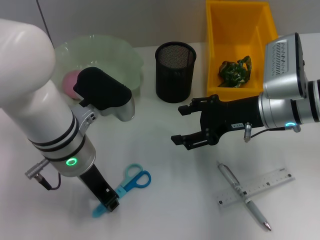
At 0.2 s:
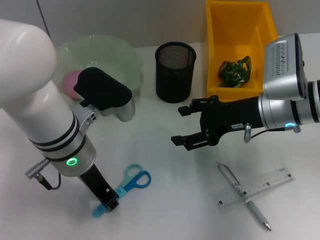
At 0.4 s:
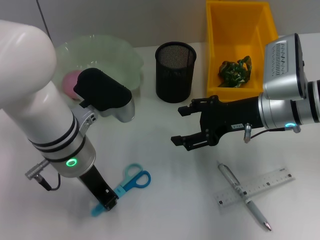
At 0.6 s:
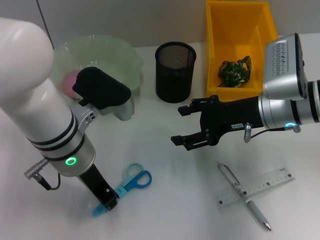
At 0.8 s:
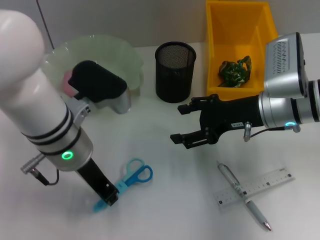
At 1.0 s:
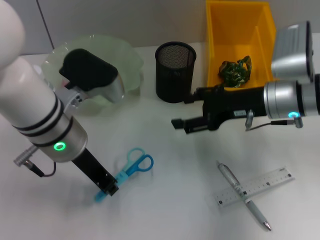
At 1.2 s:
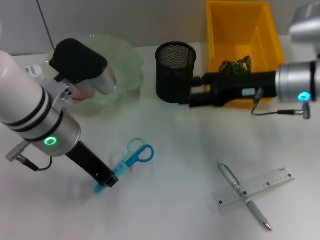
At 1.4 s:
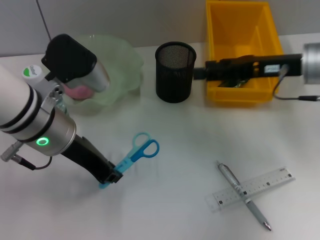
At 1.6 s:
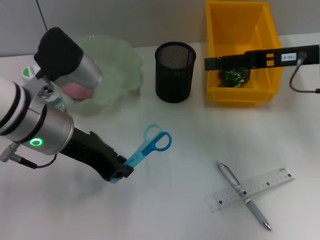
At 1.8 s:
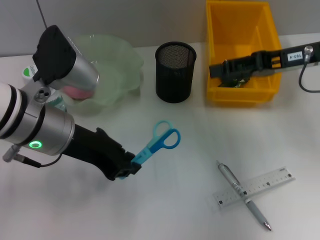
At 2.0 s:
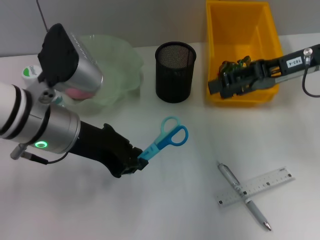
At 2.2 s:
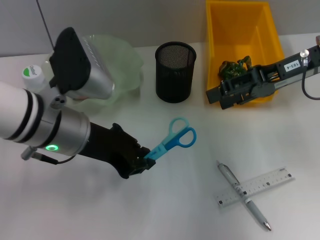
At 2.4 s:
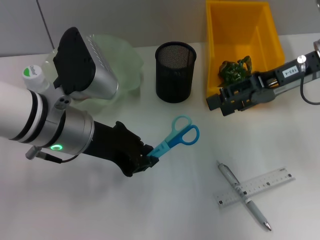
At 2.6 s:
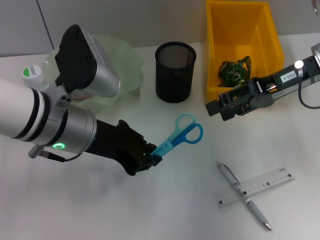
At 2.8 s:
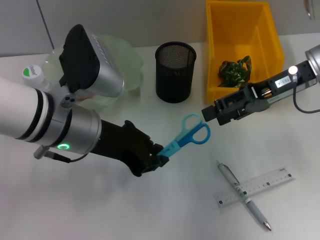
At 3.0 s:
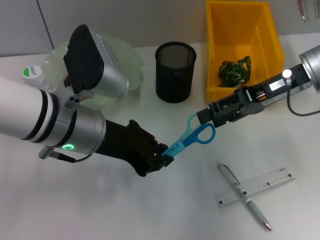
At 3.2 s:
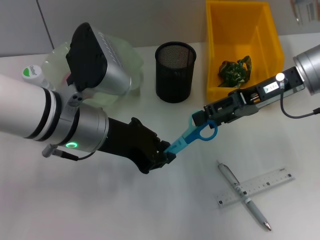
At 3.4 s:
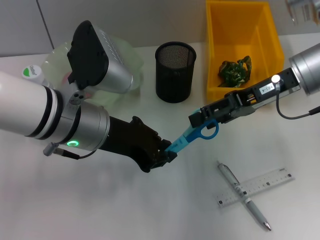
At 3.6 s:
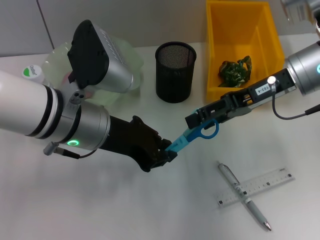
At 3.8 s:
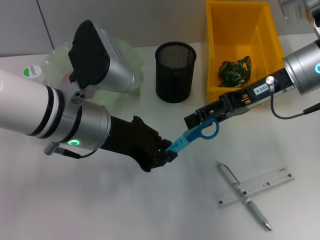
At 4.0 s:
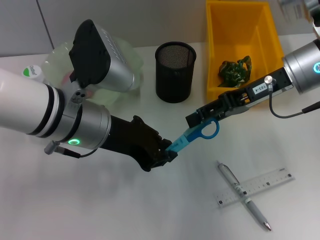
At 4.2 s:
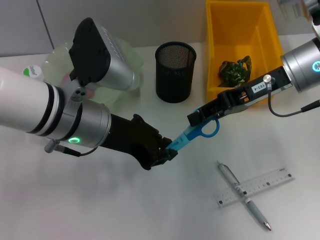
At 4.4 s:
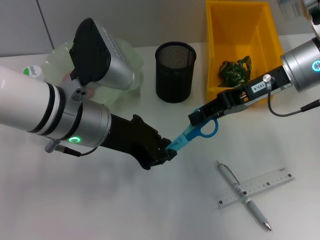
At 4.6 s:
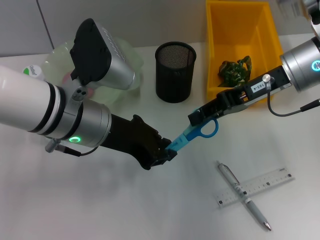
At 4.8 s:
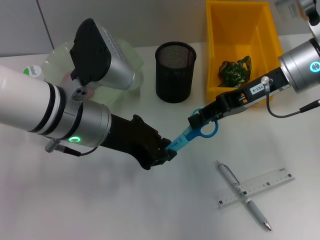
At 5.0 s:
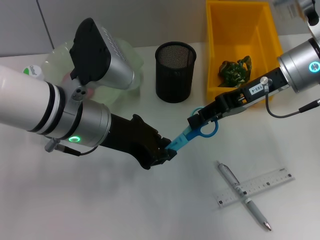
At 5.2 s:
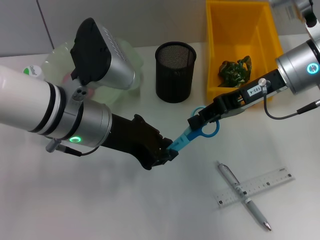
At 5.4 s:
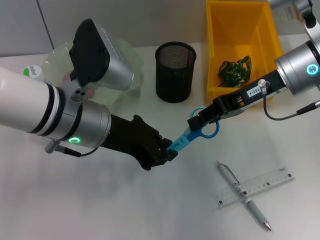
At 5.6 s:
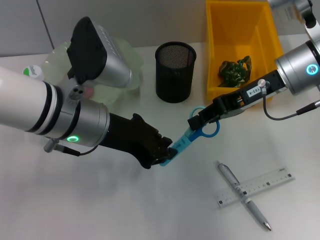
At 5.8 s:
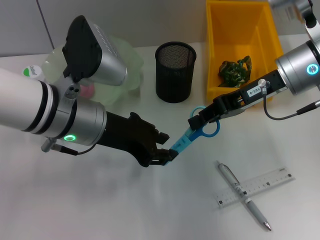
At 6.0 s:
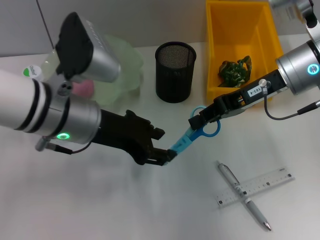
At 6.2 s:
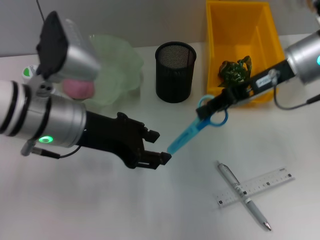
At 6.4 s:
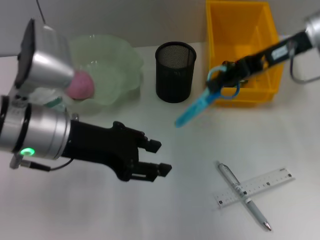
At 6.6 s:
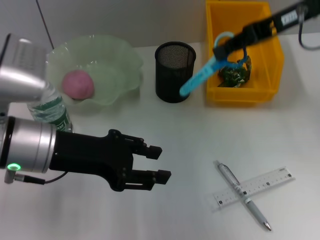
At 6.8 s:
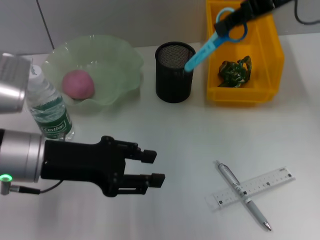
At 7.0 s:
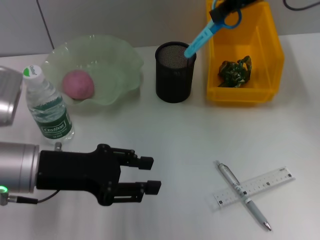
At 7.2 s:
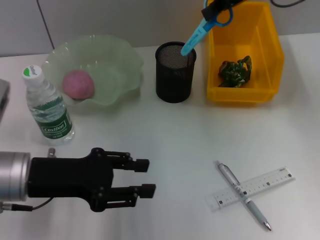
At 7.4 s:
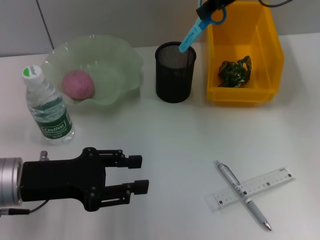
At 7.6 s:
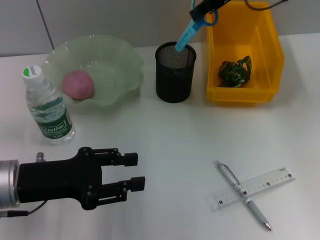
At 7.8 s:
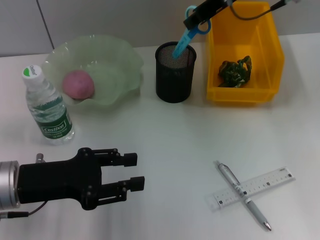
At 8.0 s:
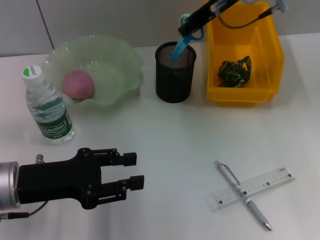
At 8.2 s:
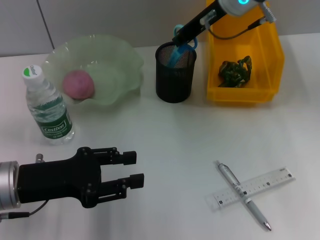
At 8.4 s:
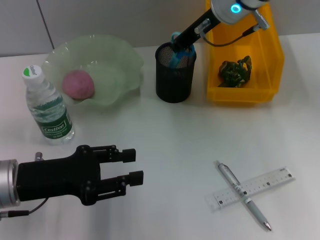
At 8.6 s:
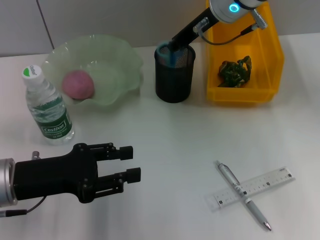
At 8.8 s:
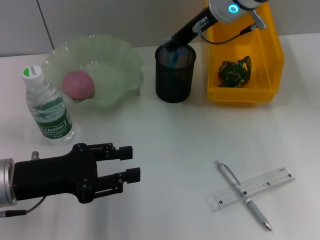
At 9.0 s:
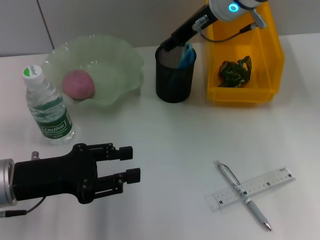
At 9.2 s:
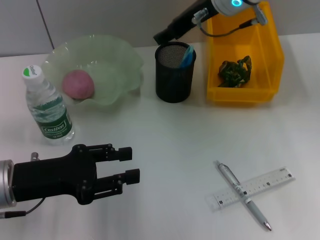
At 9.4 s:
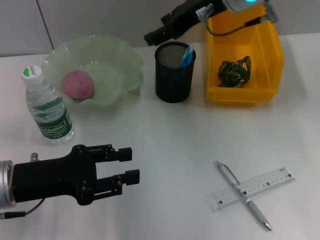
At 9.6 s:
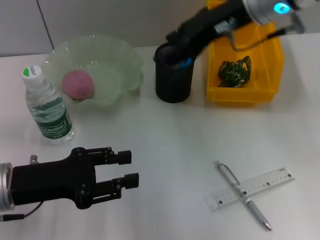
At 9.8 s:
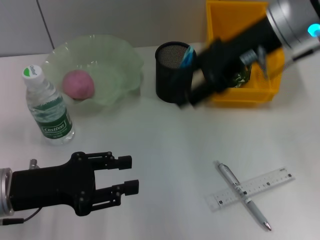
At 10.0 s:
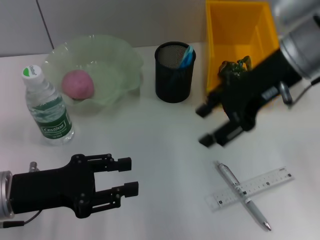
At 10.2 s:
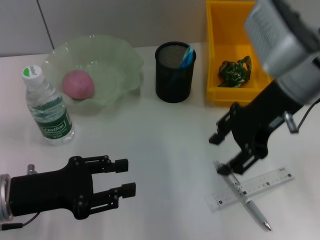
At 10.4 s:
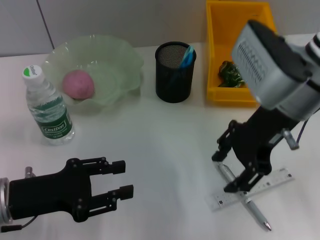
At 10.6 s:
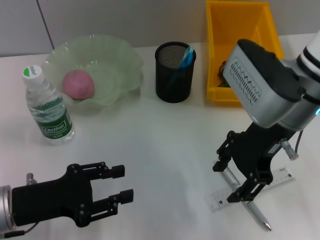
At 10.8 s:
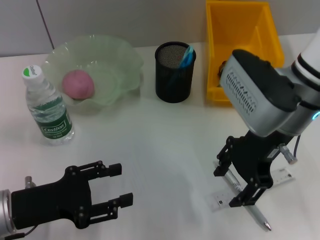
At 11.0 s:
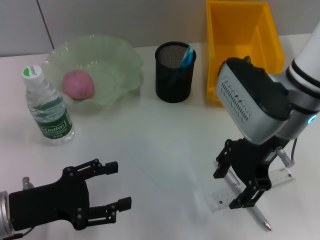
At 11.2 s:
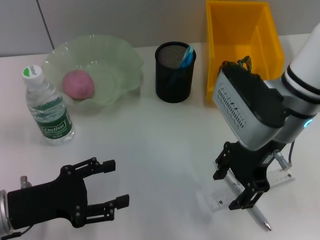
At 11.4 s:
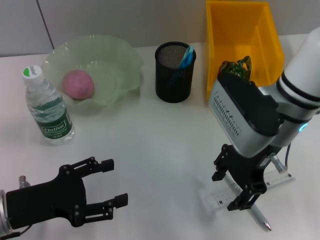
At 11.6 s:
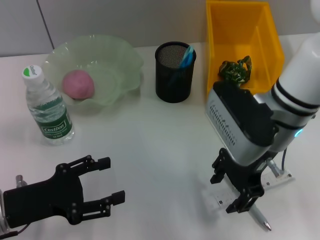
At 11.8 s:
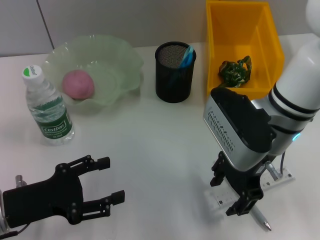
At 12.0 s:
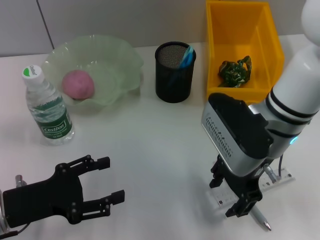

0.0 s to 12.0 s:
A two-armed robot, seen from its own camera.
Step, 0.4 to 6.0 s: Pass the blue scissors from the left hand to the right hand.
Step, 6.2 to 9.0 s: Place the blue scissors into the pen holder with the right hand.
0.0 to 1.6 s: The right gripper heads upward and to the right, covering roughly 10 cm. Meanwhile the left gripper shifts by some 5 cm.
3.0 to 4.4 s: The right gripper closes up.
4.4 to 6.0 s: The left gripper opens up. The right gripper closes.
6.0 to 7.6 s: The left gripper moves to the left, downward and backward, roughly 15 cm, while the right gripper heads upward and forward, covering about 15 cm.
7.6 to 9.0 s: The right gripper moves downward and to the left, some 10 cm.
9.0 to 10.4 s: The right gripper travels backward by roughly 10 cm, and opens up.
10.4 to 12.0 s: The left gripper opens. The right gripper moves downward, about 5 cm.

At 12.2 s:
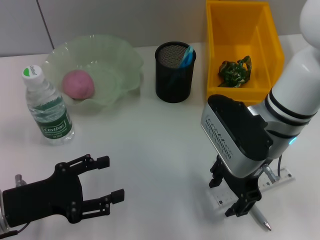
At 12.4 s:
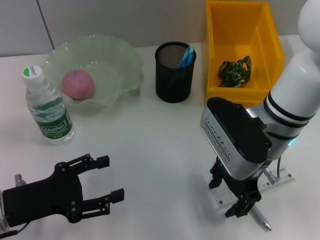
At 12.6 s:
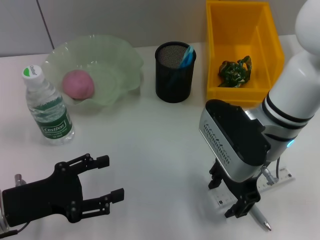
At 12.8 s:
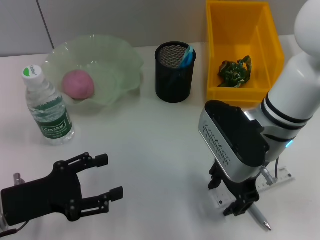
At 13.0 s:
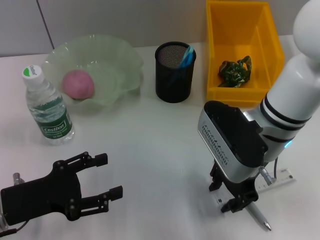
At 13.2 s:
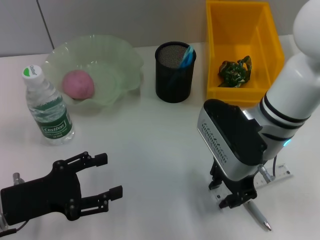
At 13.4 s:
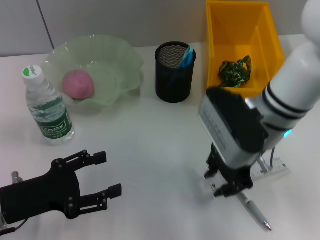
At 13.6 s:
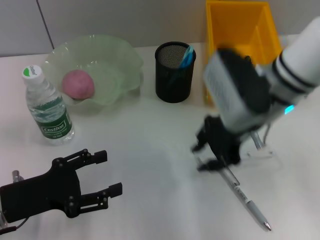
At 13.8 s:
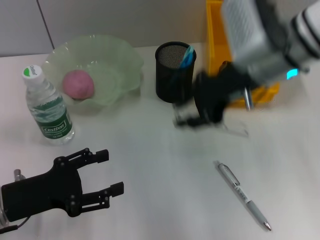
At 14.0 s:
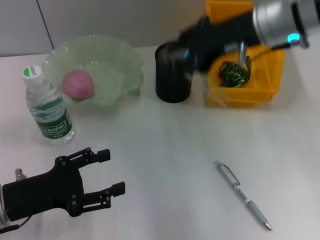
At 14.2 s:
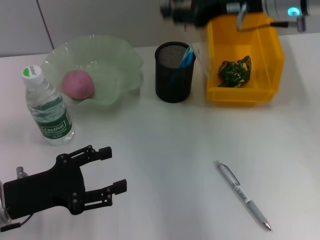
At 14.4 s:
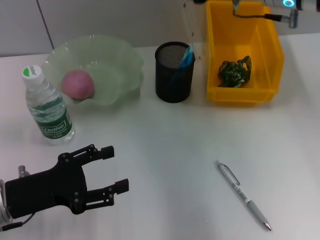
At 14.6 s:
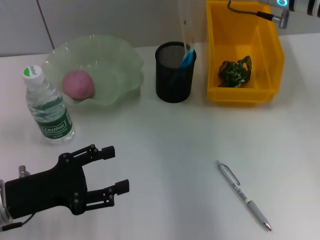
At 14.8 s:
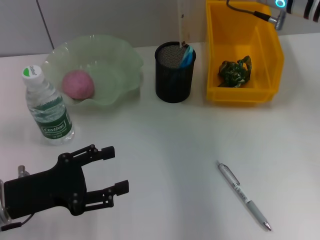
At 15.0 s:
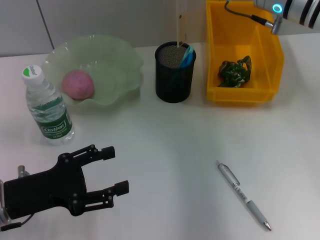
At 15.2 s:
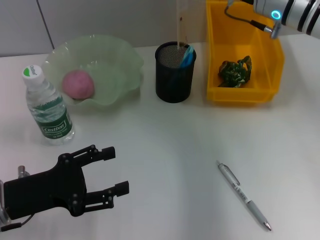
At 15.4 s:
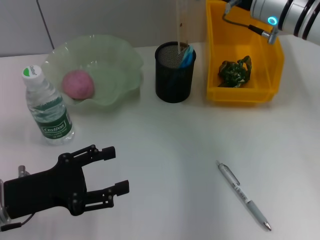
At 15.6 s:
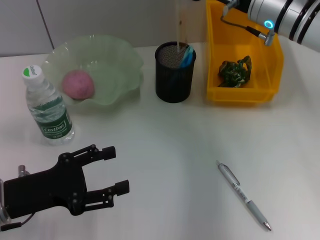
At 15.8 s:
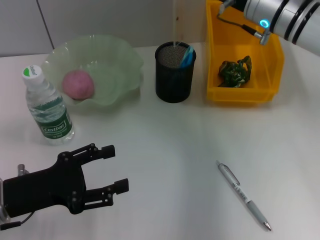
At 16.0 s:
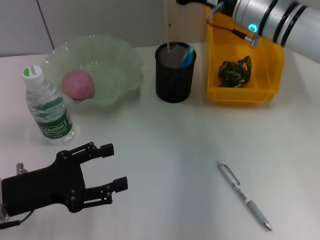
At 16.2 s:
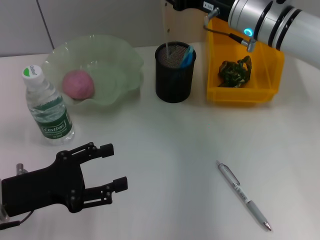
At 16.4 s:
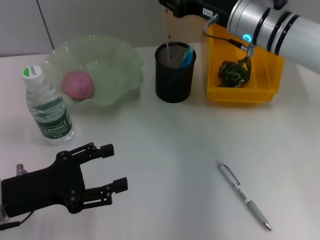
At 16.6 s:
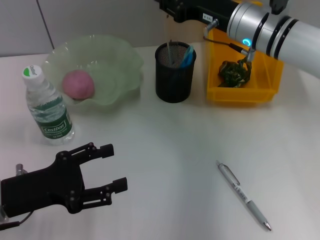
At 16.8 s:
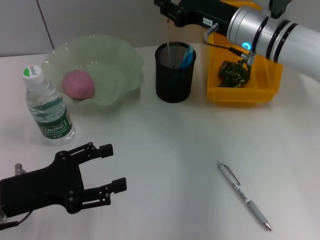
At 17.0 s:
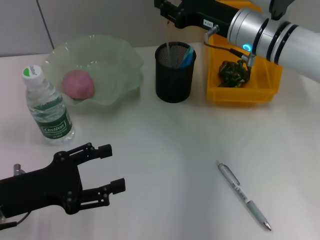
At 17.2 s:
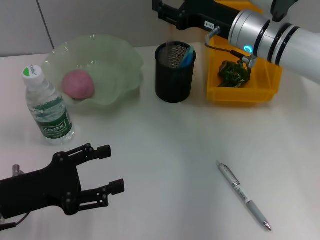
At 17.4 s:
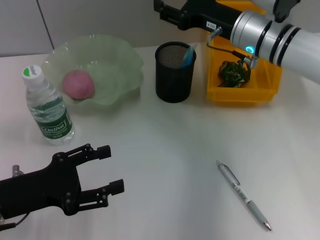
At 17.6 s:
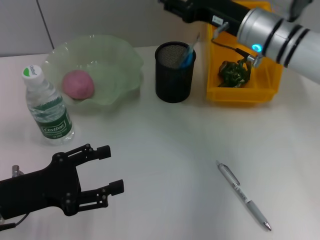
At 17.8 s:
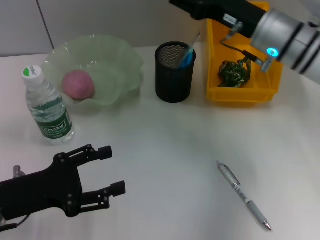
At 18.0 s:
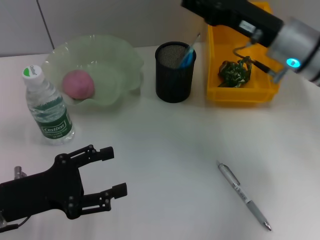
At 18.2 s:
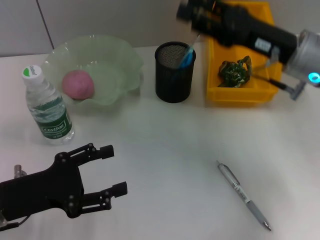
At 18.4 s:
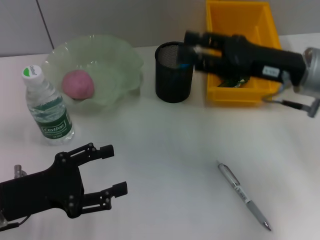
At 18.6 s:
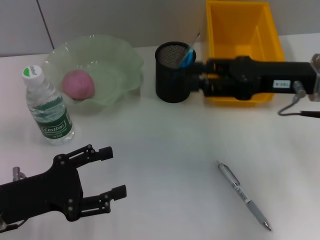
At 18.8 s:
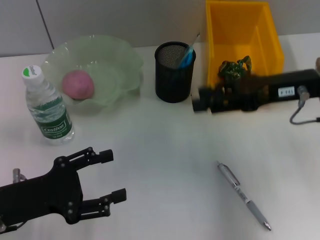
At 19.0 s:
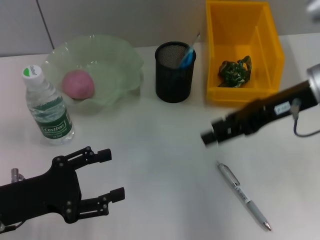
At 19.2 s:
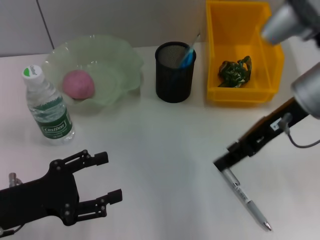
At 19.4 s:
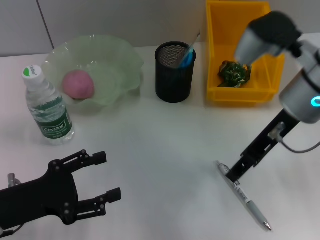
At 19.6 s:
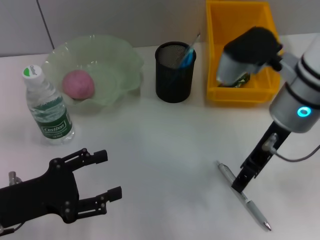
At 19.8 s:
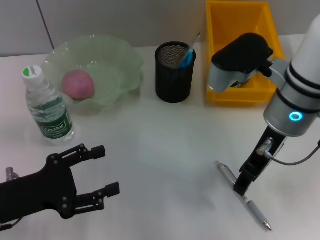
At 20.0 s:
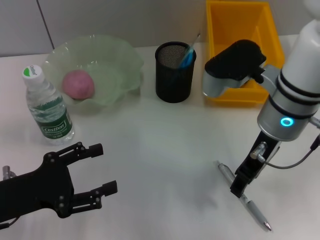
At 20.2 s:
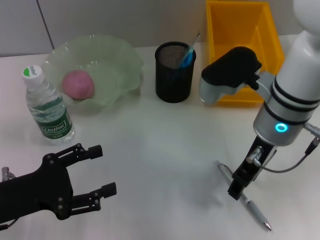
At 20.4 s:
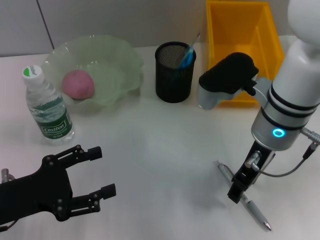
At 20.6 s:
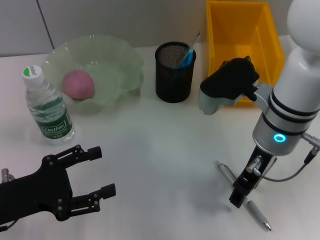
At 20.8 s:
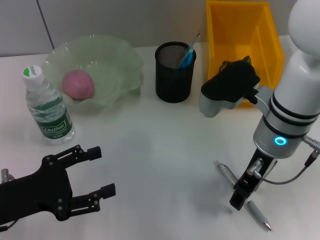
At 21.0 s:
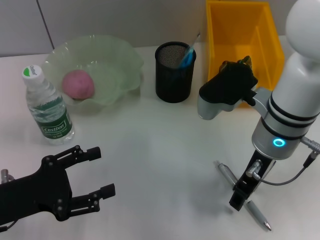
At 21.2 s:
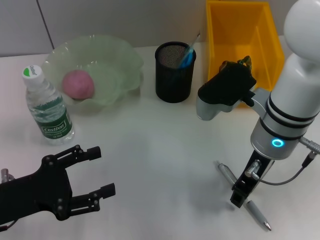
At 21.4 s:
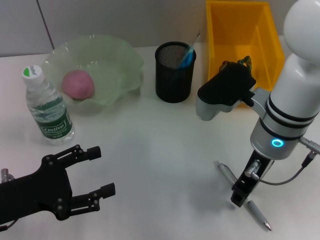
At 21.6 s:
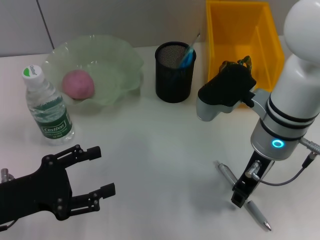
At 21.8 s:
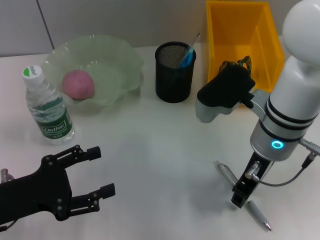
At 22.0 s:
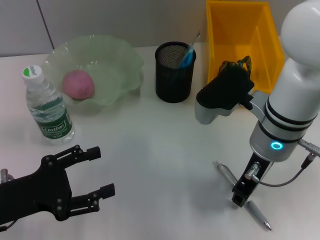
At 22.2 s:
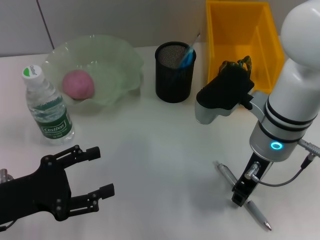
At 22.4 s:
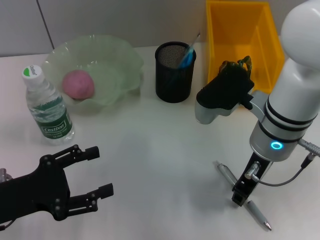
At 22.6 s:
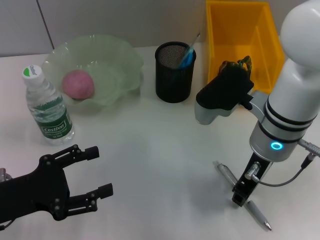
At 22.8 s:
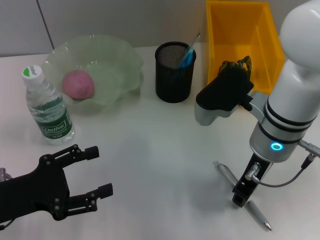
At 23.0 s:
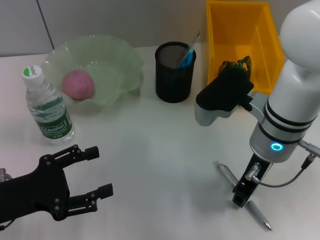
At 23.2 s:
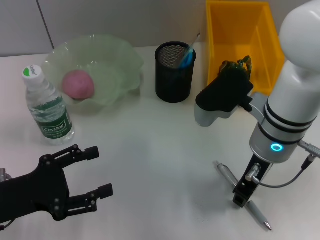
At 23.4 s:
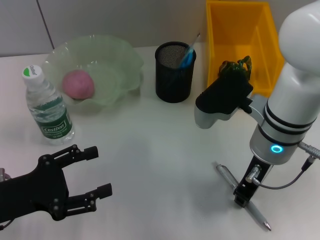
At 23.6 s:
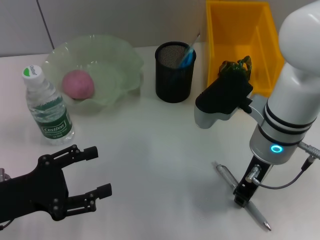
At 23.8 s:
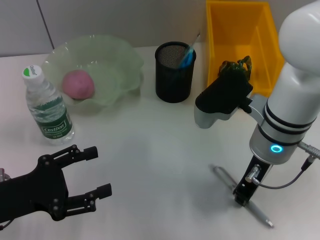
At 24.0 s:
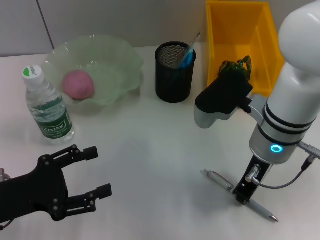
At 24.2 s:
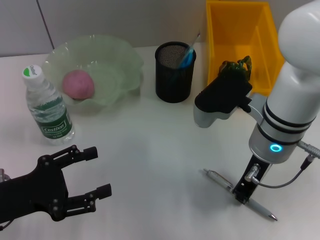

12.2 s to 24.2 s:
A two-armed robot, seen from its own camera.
Step, 13.2 to 17.6 s: Place the ruler into the pen holder with the right hand.
12.2 to 13.8 s: The right gripper heads upward, covering approximately 10 cm, and closes its fingers.
13.8 to 15.2 s: The right gripper travels forward by about 5 cm.
15.2 to 16.6 s: The right gripper ends up some 5 cm from where it was.
16.6 to 18.2 s: The right gripper is displaced backward and to the right by approximately 10 cm, and opens.
18.2 to 19.8 s: The right gripper heads to the left, covering roughly 5 cm.
19.8 to 21.2 s: There are only small adjustments of the grippers.
21.2 to 24.2 s: The two grippers keep their place.
